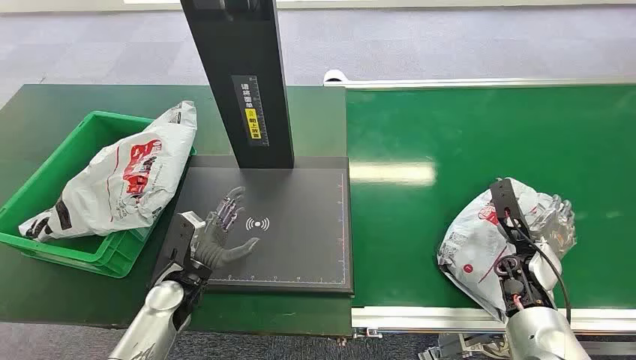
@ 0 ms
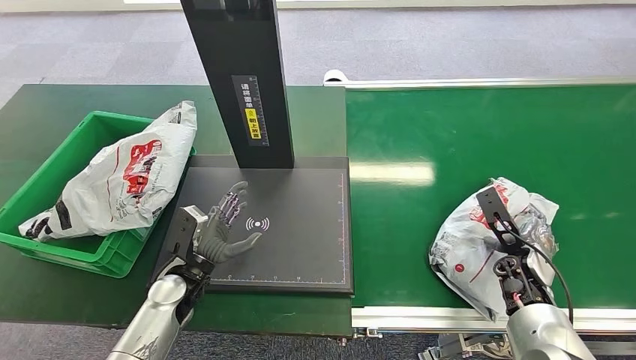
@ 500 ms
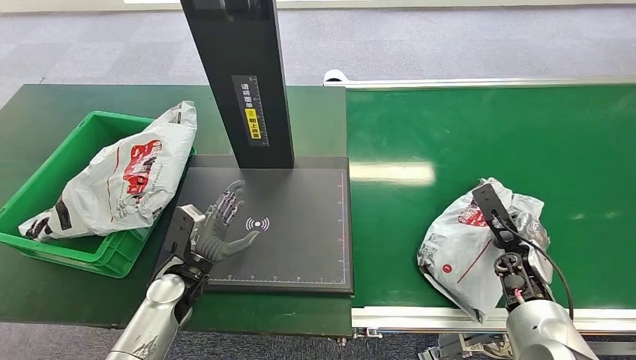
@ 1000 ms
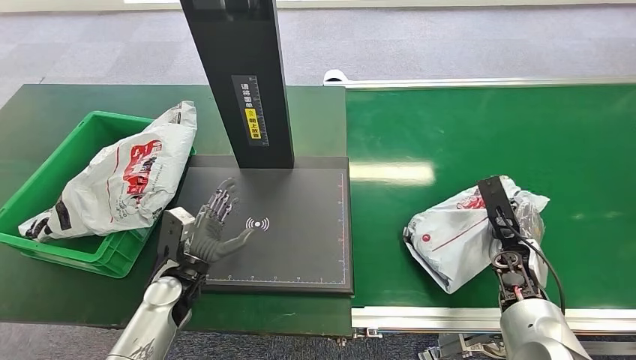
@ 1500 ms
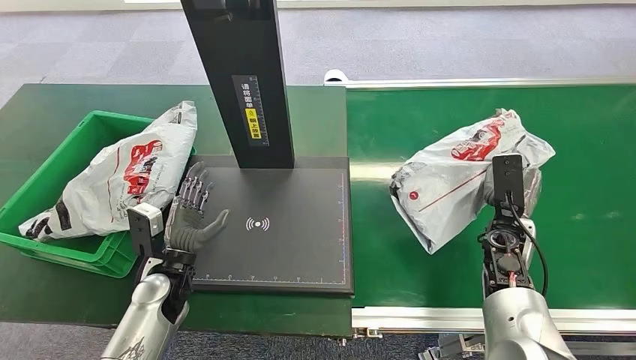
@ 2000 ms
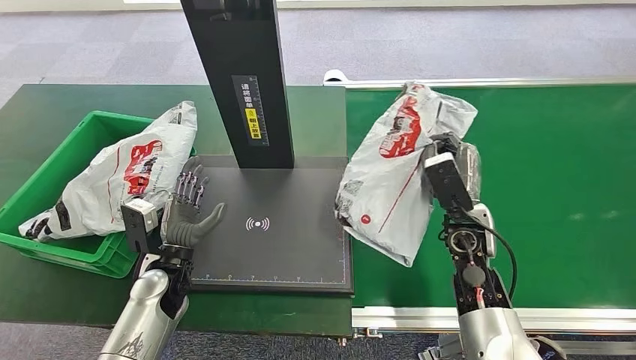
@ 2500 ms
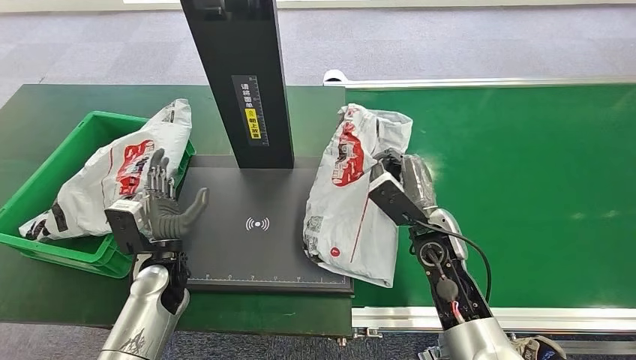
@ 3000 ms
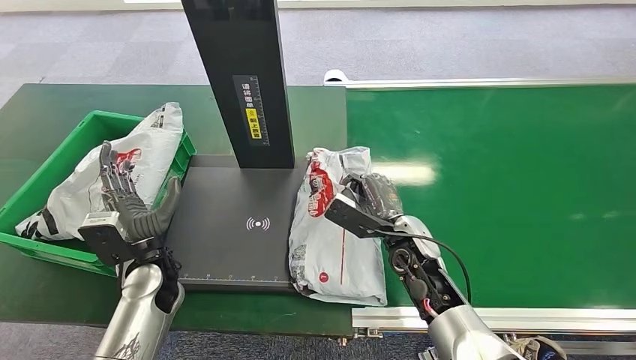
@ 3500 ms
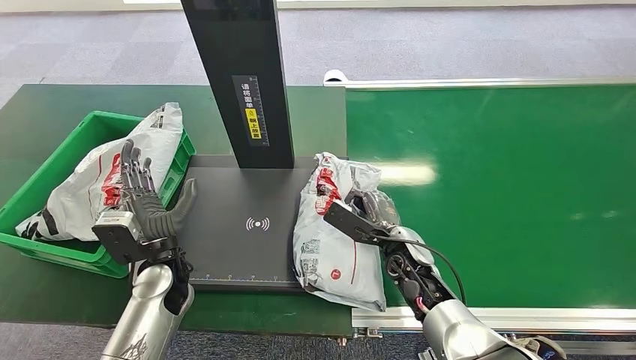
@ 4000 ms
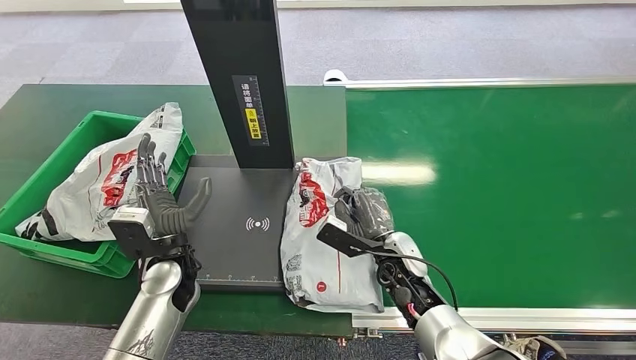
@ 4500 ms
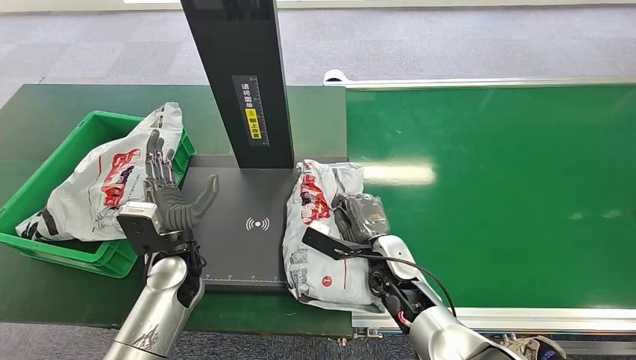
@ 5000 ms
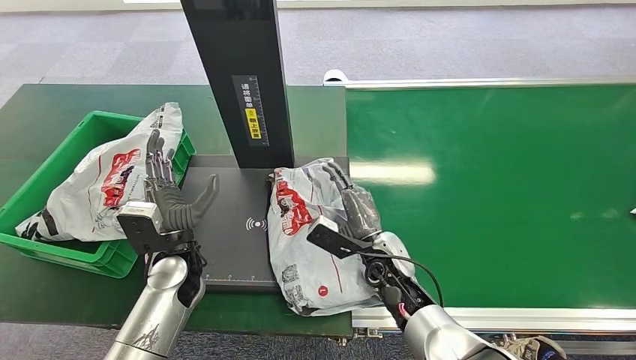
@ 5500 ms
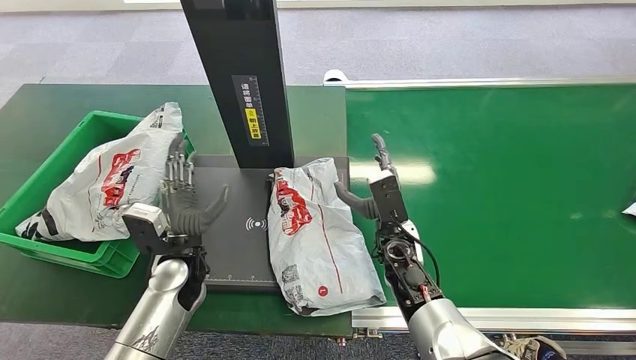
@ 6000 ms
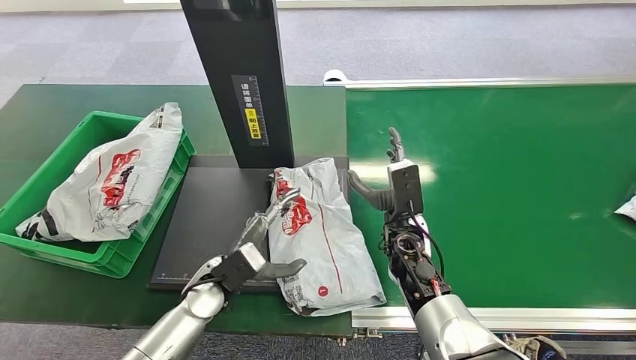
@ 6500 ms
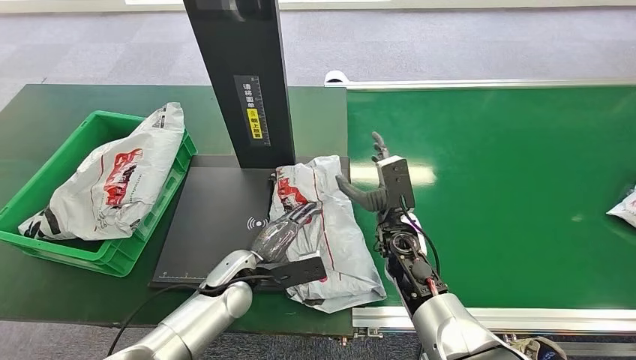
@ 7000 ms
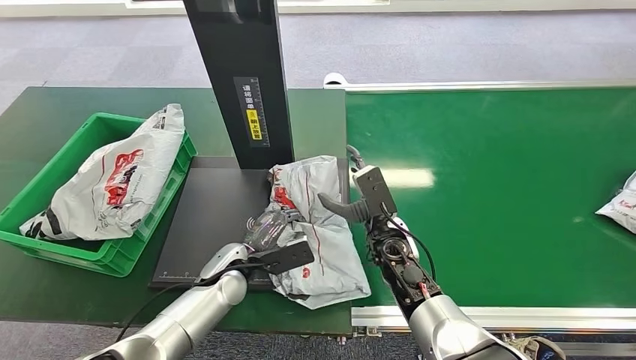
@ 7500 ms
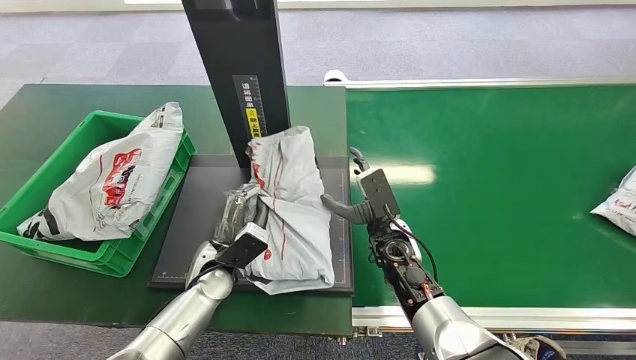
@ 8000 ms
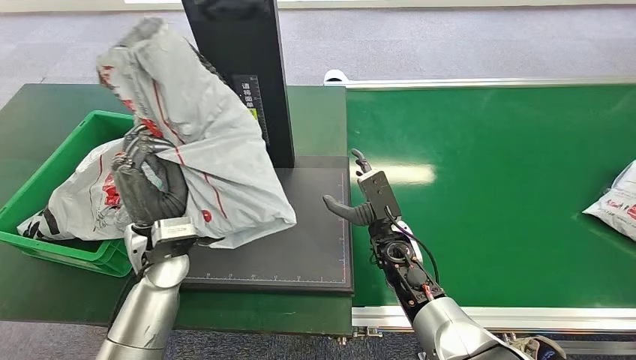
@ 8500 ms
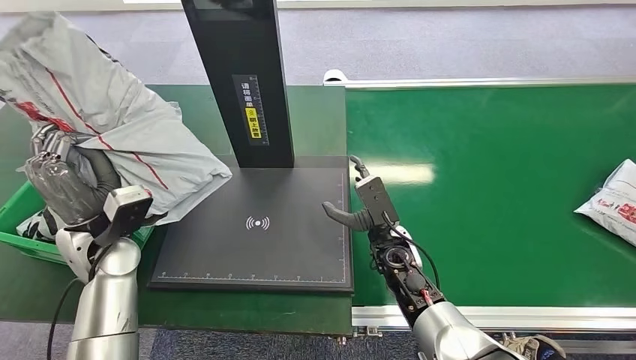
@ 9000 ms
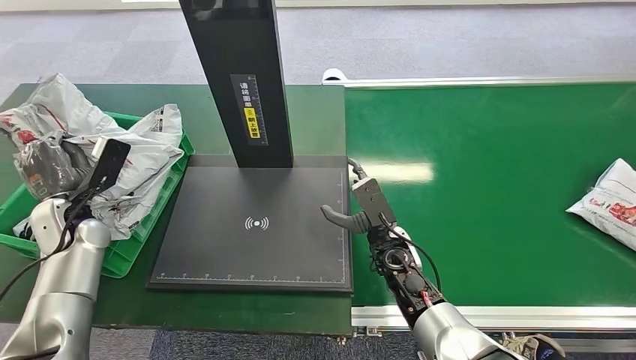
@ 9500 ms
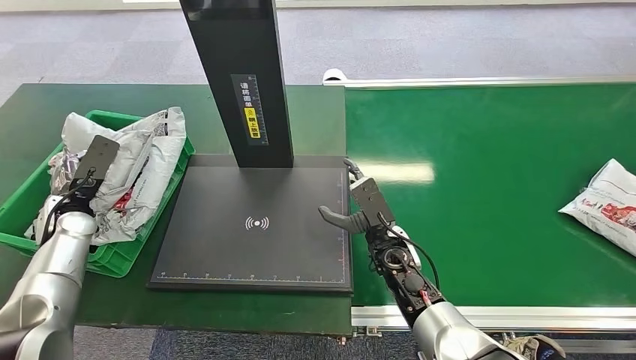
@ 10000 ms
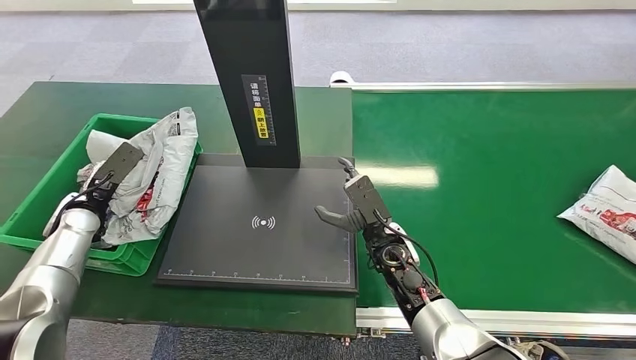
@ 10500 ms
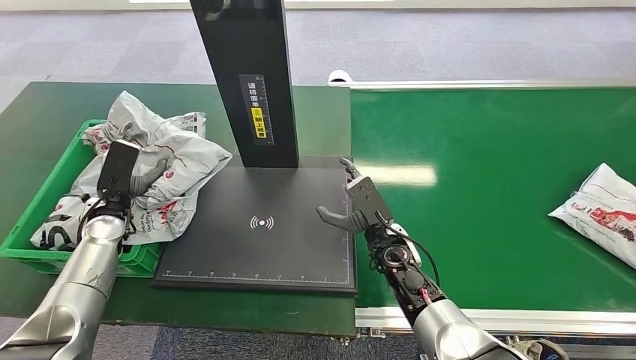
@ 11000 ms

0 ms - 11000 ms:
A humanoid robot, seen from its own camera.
Step, 0 ms - 2500 ms: Pick up the package from the conveyor belt.
Step, 3000 ms - 5000 ms: Place the package onto the inbound machine.
Step, 5500 ms - 8500 ms: Pick up the package from the inbound machine.
Step, 9000 ms - 11000 ms: Place the package into the parcel locker.
3500 ms - 5500 ms: The right hand ends up about 5 cm from where it was.
